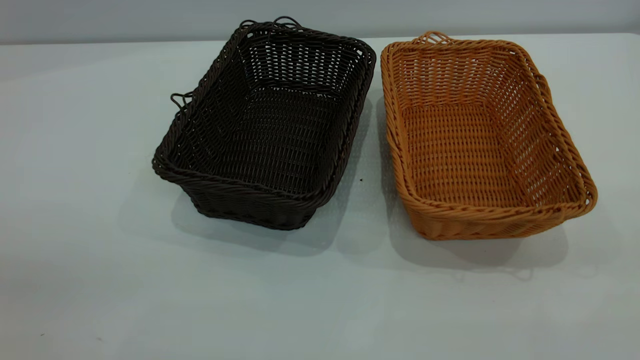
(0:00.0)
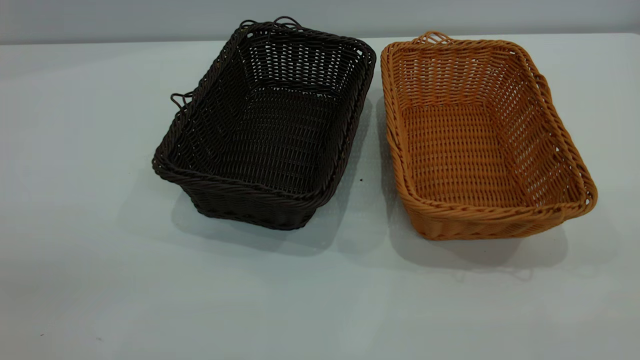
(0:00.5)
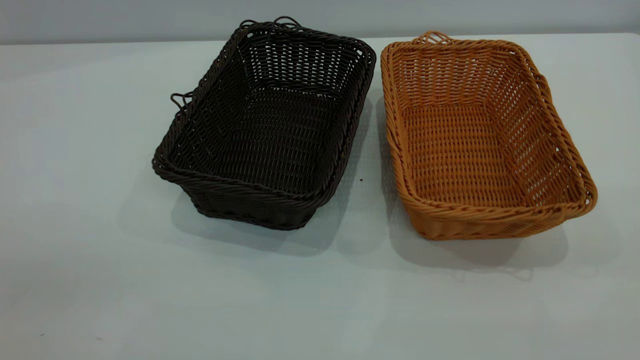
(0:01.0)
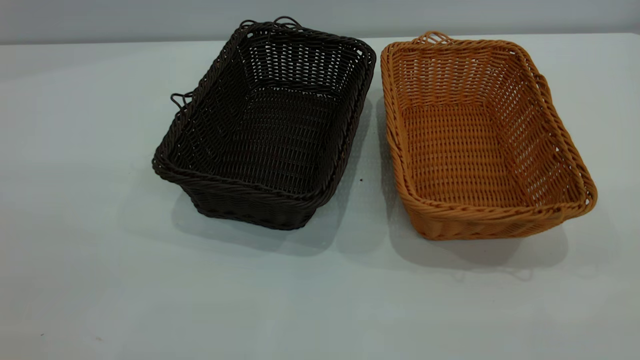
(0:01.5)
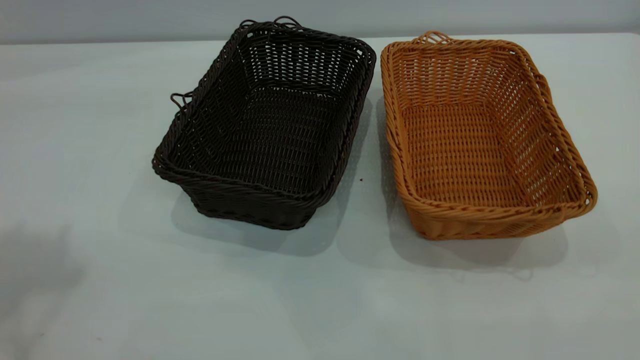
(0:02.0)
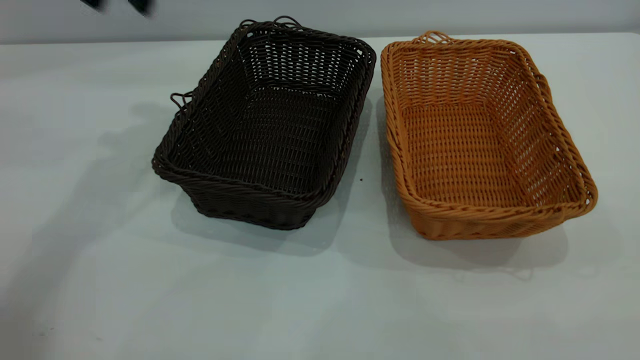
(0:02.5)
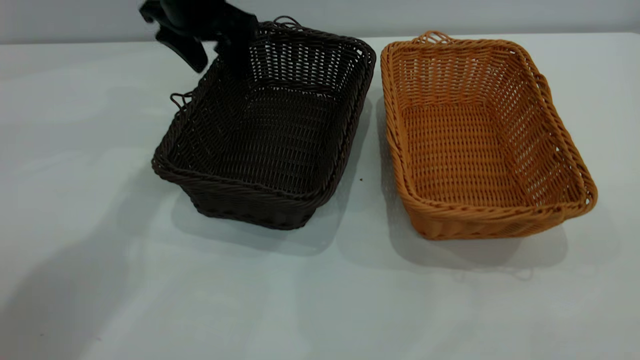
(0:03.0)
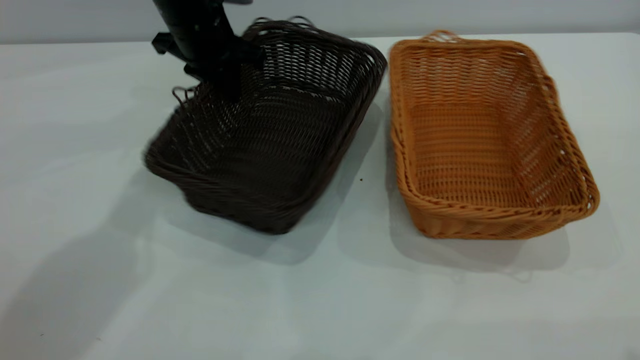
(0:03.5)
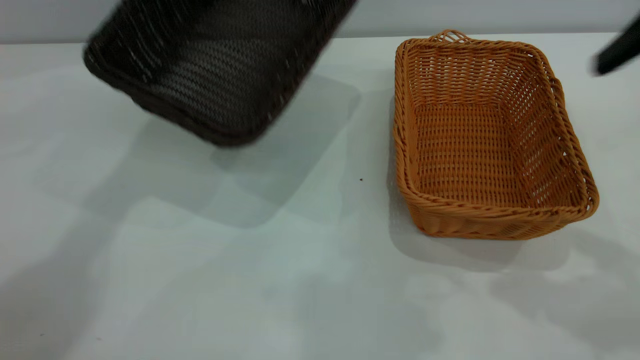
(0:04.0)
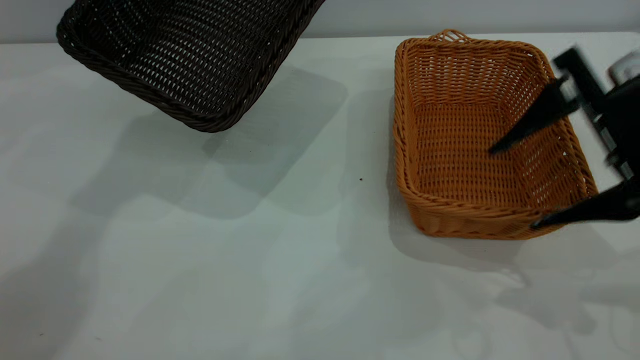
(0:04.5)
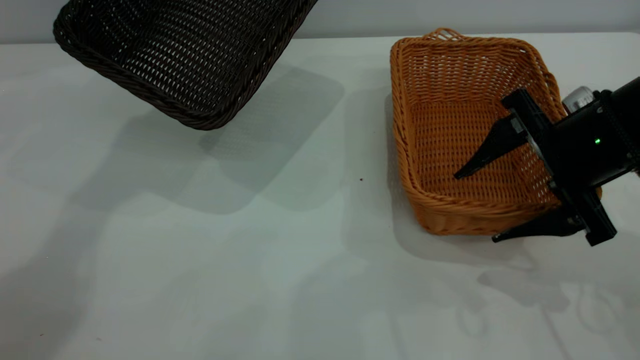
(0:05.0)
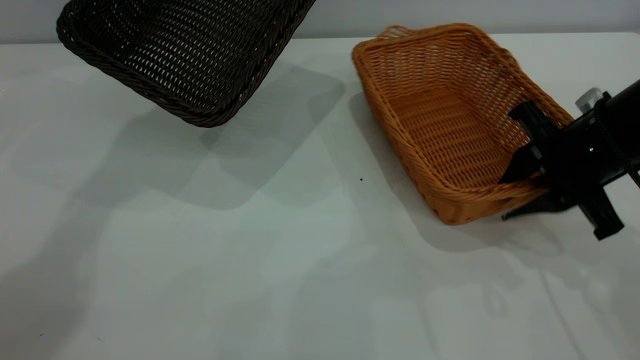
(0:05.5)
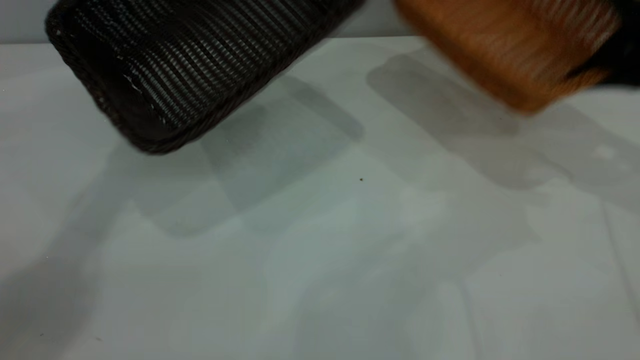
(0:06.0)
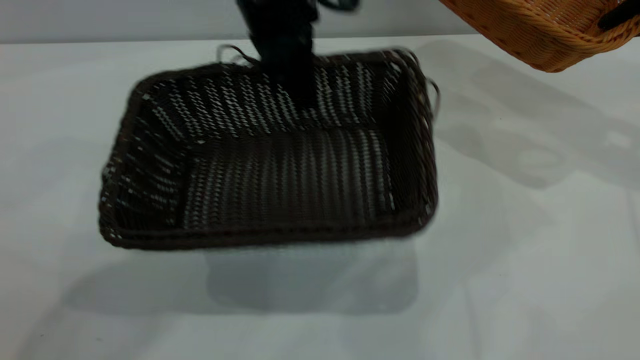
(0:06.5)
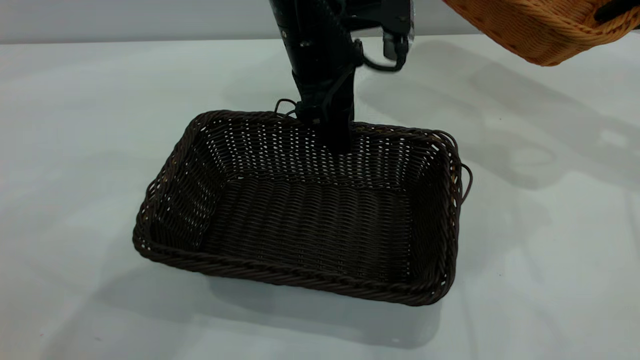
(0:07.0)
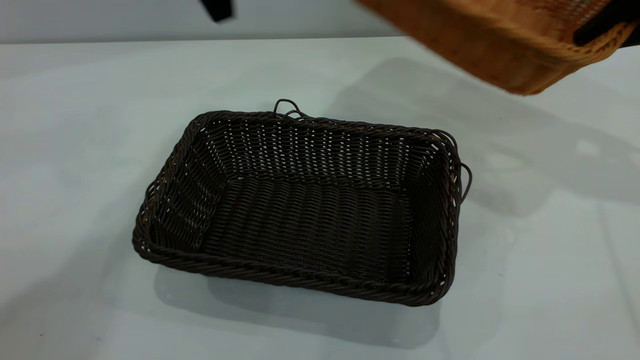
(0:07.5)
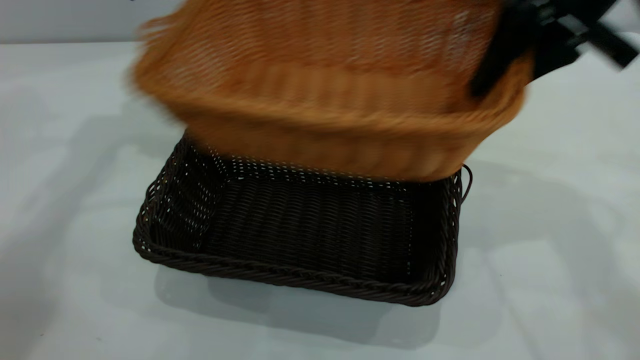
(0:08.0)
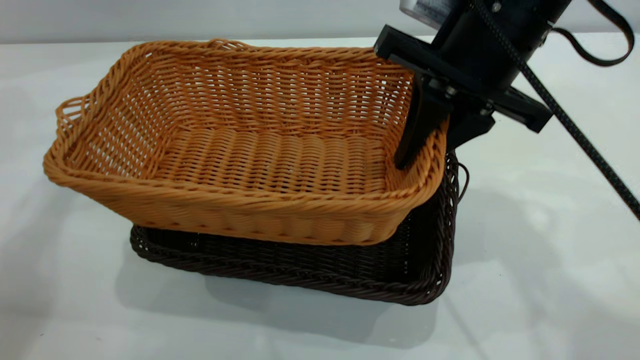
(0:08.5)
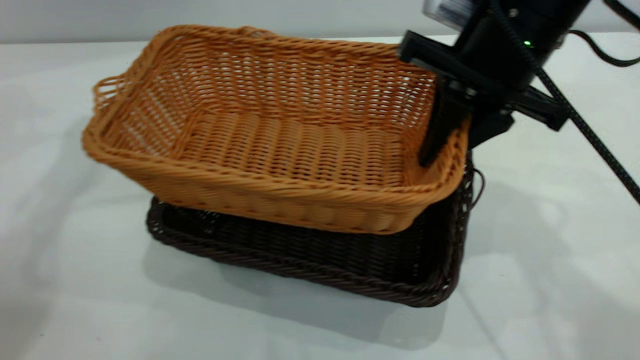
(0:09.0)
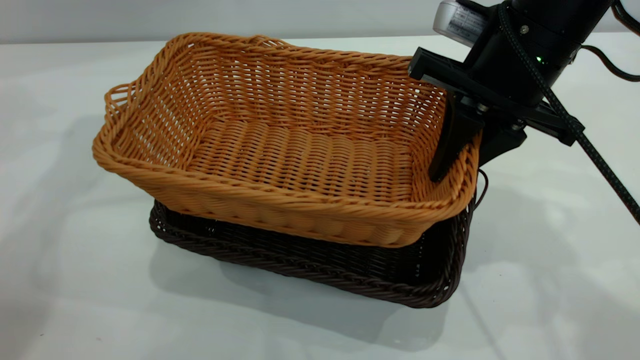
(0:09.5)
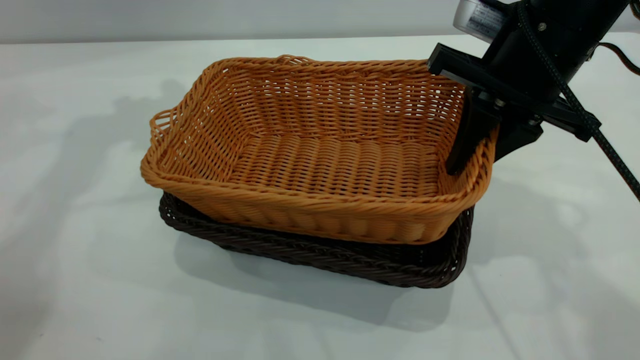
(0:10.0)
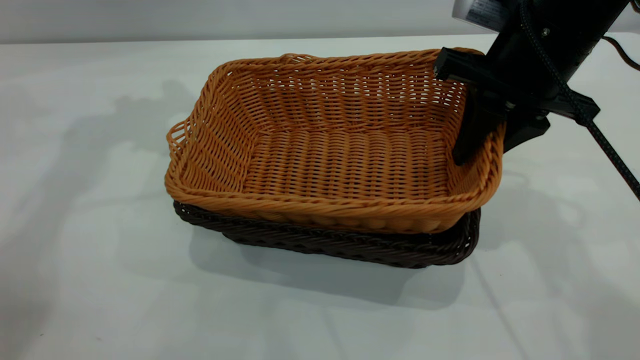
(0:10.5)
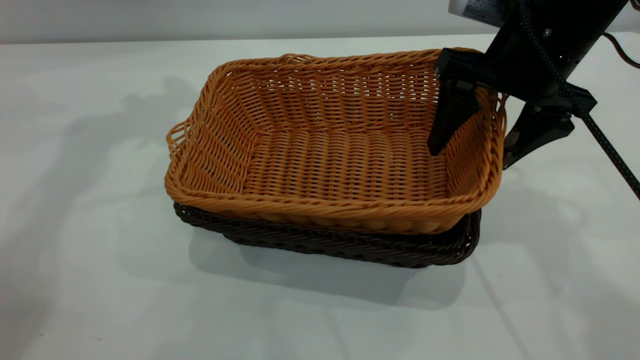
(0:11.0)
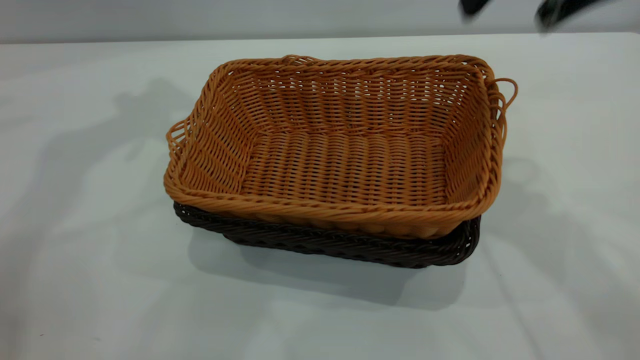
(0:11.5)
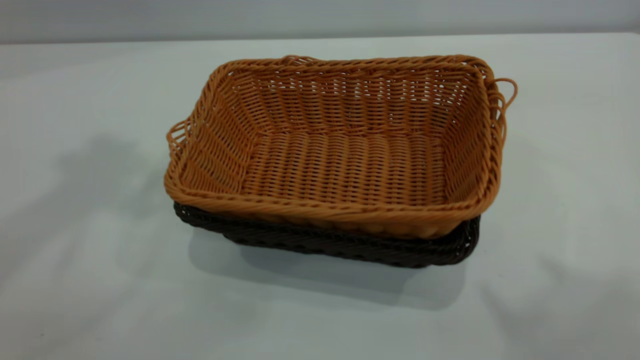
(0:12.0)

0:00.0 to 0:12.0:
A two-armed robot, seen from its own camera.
Task of the whole recording: the left gripper grasp the black basket and place it in the center of the table, the right gripper grasp the brown basket and place it inside the black one.
Step, 0:00.0 to 0:05.5: Pick up the light basket with the right gripper.
Step, 0:06.0 to 0:07.0: Move the dark basket to the center of view.
Step, 0:07.5 to 0:11.0: Place the light basket on the dark basket.
0:02.0 to 0:04.0: The left gripper heads forward, to the right and downward, covering about 30 cm, and closes up, while the right gripper shifts some 25 cm forward.
0:04.0 to 0:06.0: The right gripper is displaced forward, downward and to the right by some 20 cm, and closes its fingers.
0:06.0 to 0:08.0: The left gripper goes to the right and returns, about 15 cm each way, and opens up. The right gripper is displaced to the left by approximately 15 cm.
0:08.0 to 0:10.0: The right gripper is displaced downward by some 5 cm.
0:10.0 to 0:12.0: Both grippers travel together upward and backward, some 35 cm. The right gripper opens its fingers.
